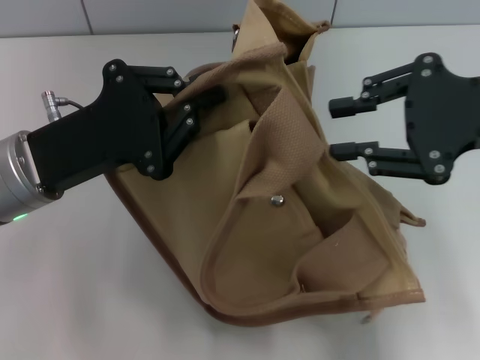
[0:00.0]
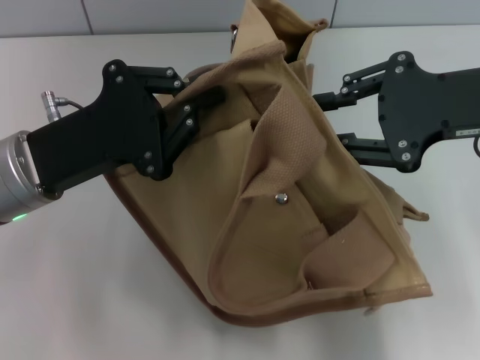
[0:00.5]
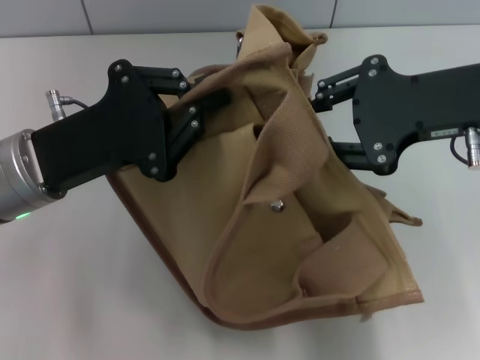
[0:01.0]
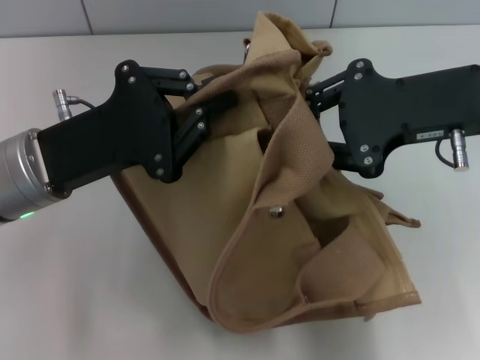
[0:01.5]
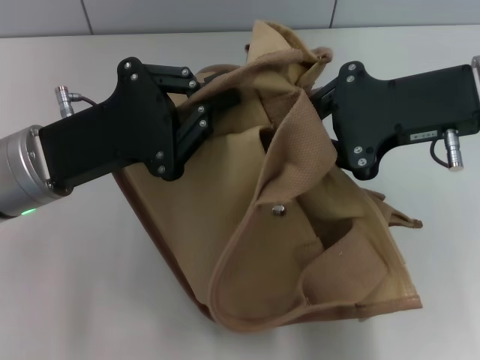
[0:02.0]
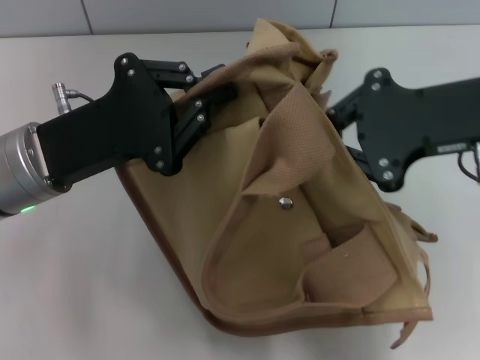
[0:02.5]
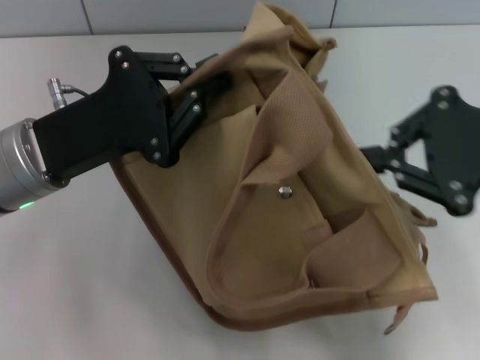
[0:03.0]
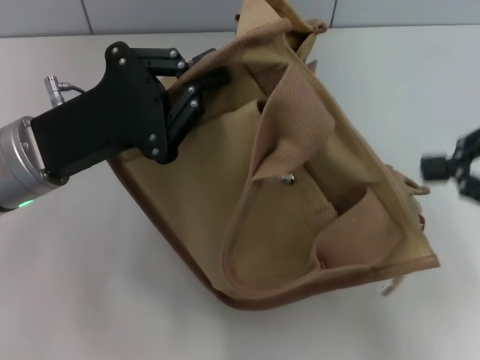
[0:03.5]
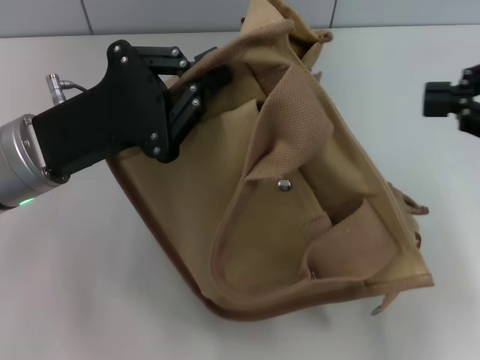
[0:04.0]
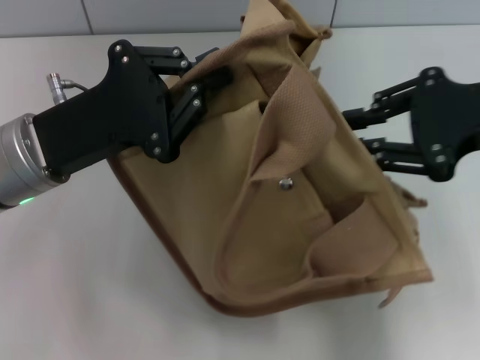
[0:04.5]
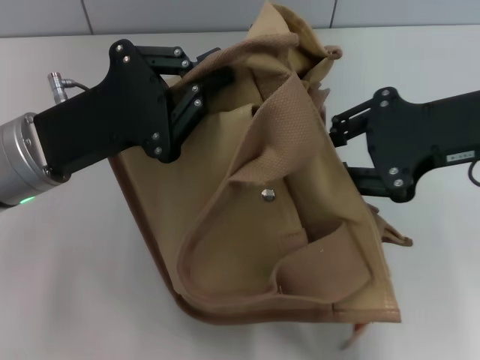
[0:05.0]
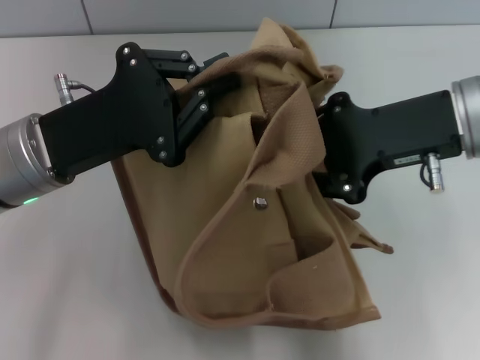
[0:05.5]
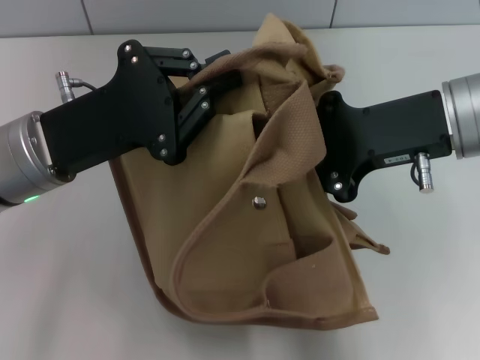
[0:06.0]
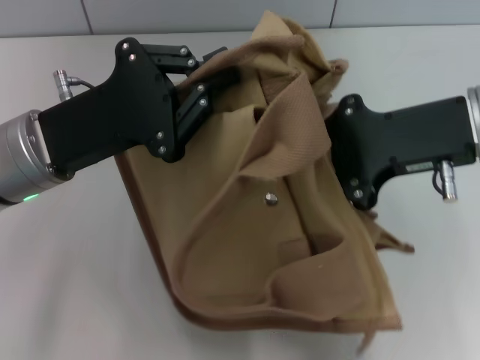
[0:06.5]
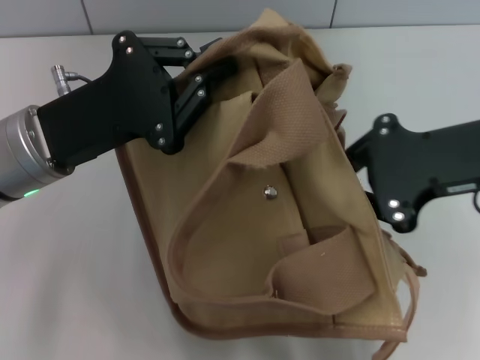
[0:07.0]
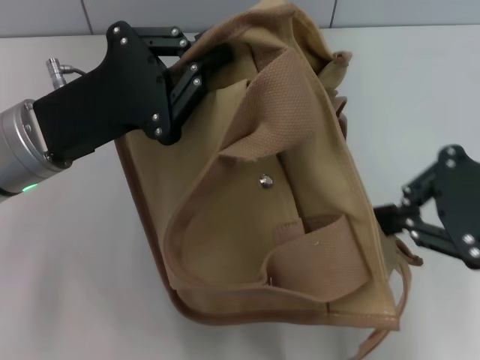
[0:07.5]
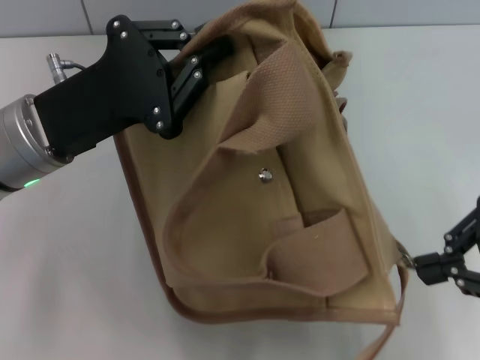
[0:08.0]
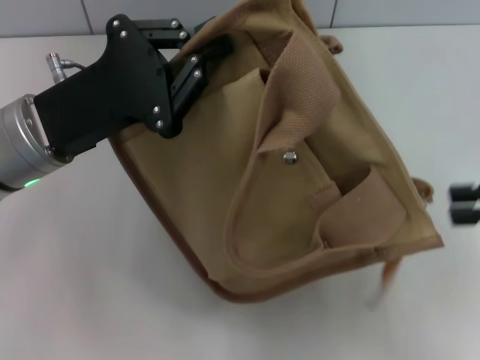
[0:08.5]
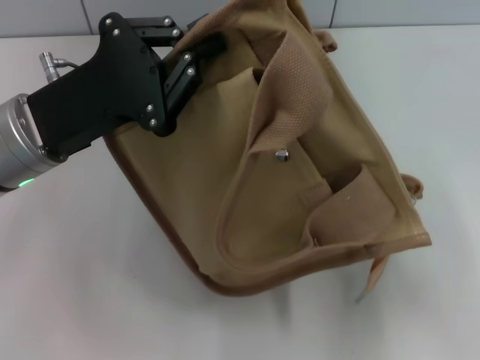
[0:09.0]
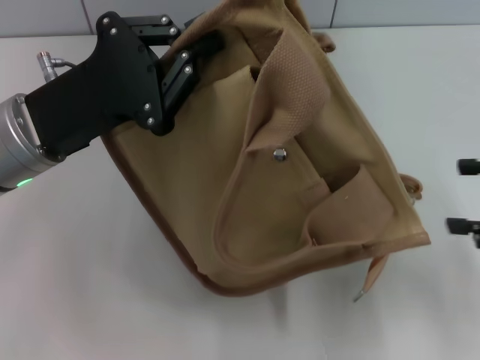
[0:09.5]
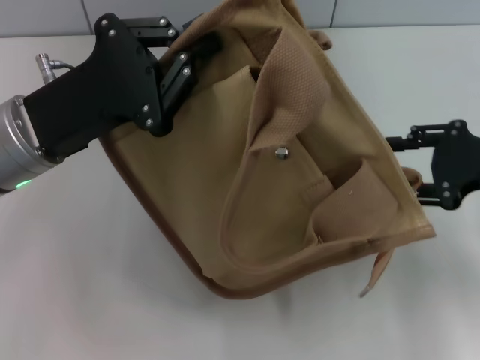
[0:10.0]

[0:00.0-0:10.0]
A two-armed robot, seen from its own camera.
Step, 0:00.0 to 0:08.0: Pull open the zipper with your right hand.
0:02.0 to 0:04.0: The right gripper moves to the right, approximately 10 cm.
0:04.0 to 0:06.0: The right gripper travels to the left by roughly 10 cm.
0:06.0 to 0:08.0: The right gripper moves to the right and backward, some 15 cm.
0:08.0 to 0:10.0: The right gripper heads downward and forward, covering about 10 cm, reaches approximately 10 cm to the right, then returns, and opens up.

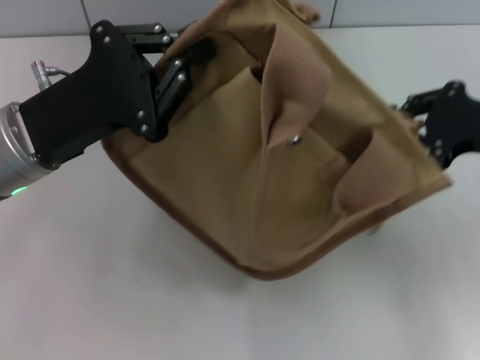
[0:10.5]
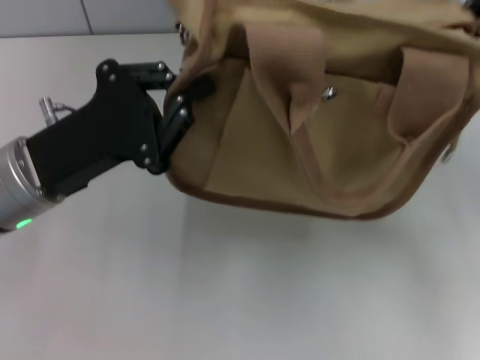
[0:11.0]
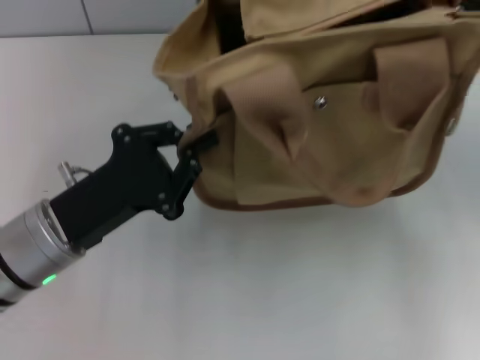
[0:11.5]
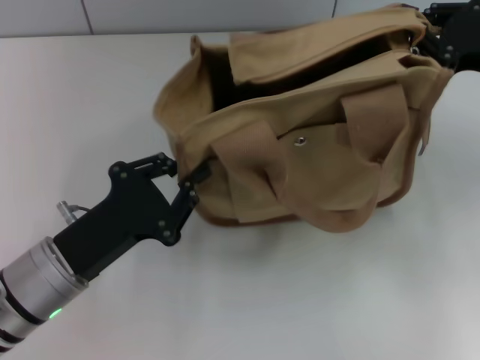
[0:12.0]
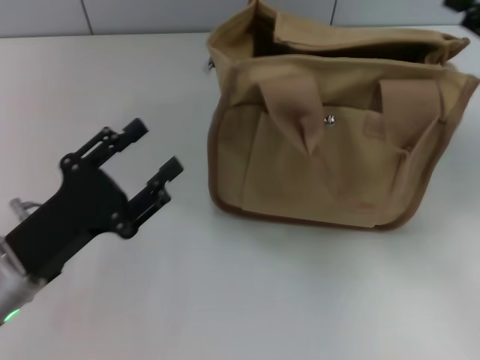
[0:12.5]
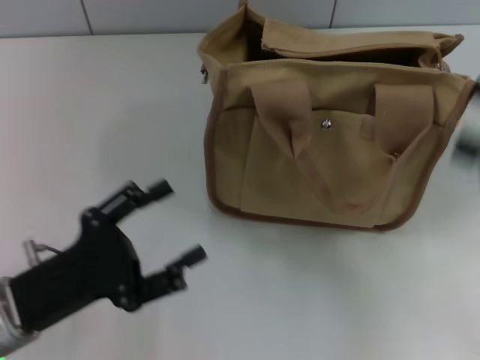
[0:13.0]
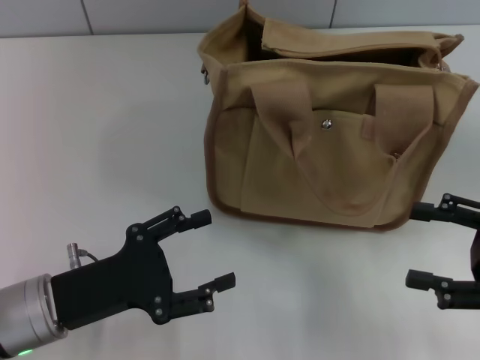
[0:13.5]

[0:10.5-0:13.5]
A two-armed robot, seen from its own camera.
0:10.5 to 0:12.0: The left gripper travels downward and backward by roughly 10 cm. Meanwhile the right gripper closes.
0:12.0 to 0:13.5: The right gripper moves backward and downward, about 15 cm, and opens. The left gripper opens up.
